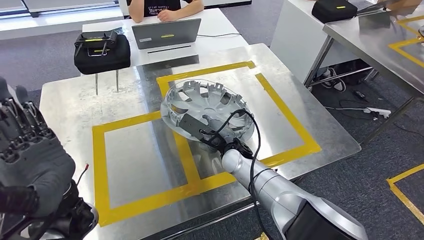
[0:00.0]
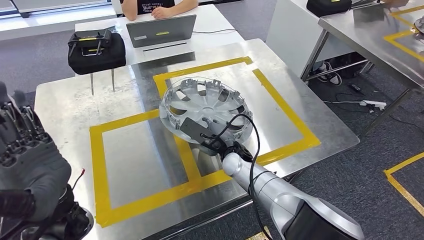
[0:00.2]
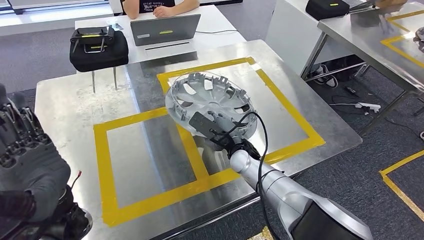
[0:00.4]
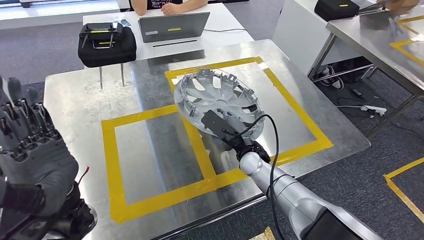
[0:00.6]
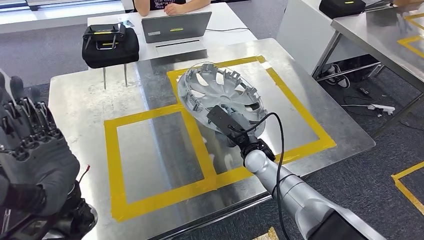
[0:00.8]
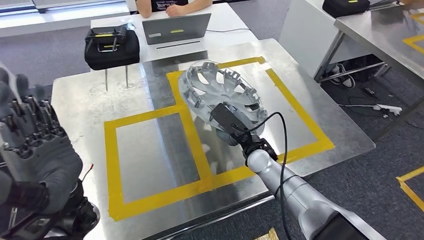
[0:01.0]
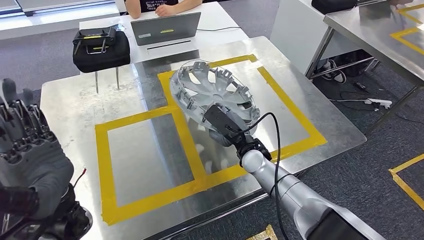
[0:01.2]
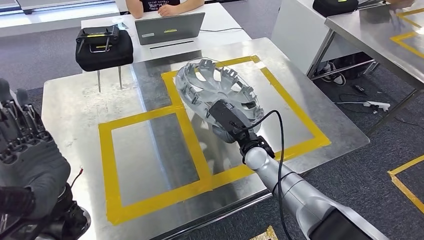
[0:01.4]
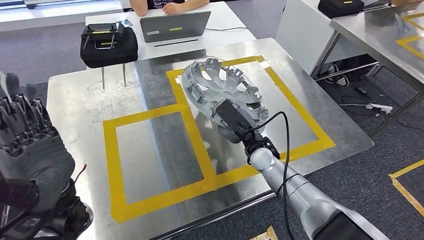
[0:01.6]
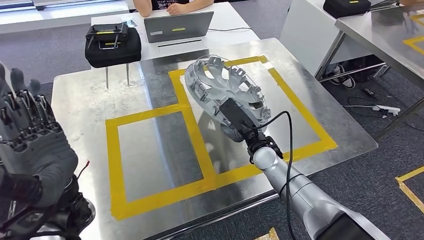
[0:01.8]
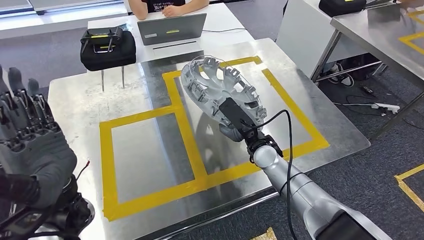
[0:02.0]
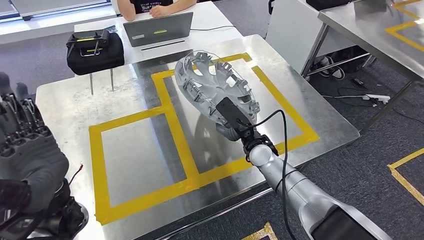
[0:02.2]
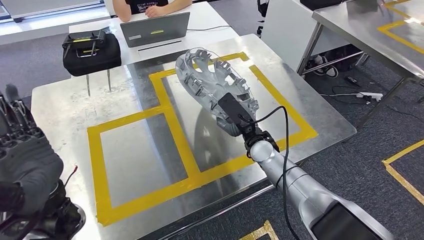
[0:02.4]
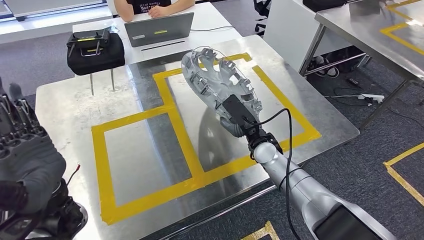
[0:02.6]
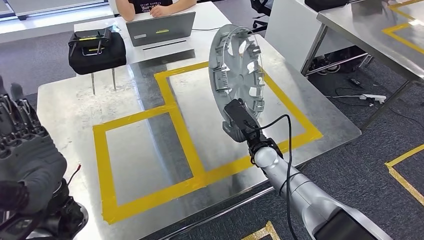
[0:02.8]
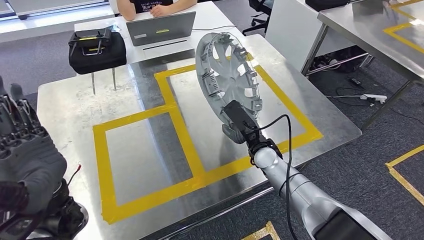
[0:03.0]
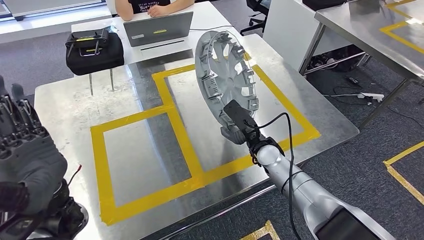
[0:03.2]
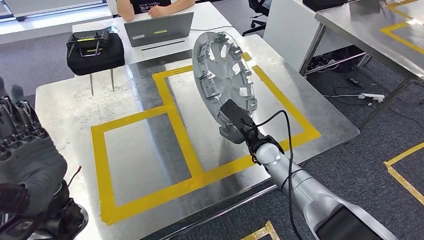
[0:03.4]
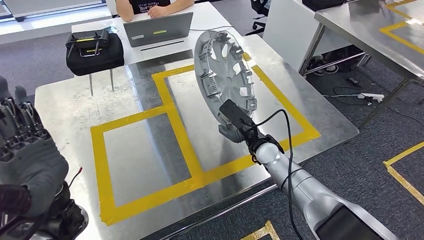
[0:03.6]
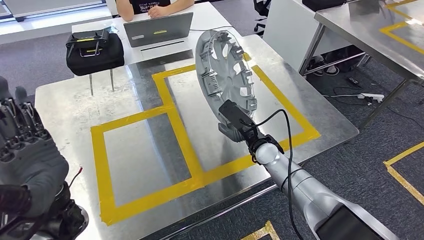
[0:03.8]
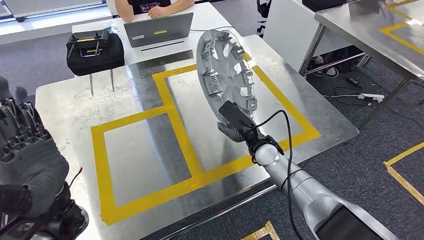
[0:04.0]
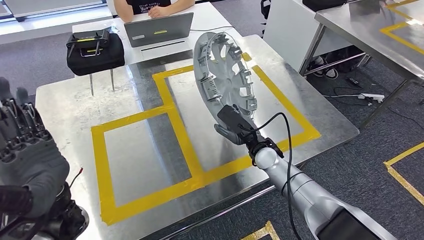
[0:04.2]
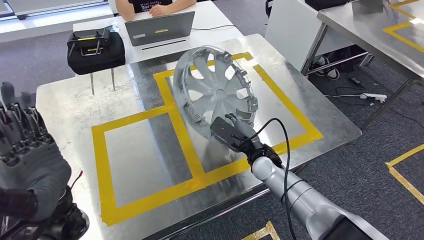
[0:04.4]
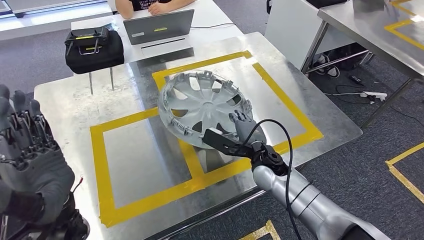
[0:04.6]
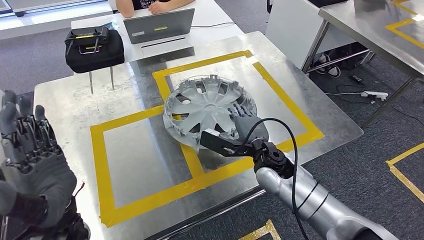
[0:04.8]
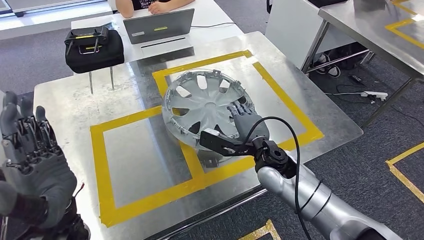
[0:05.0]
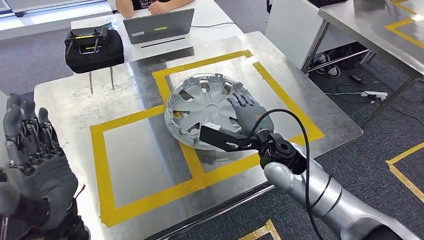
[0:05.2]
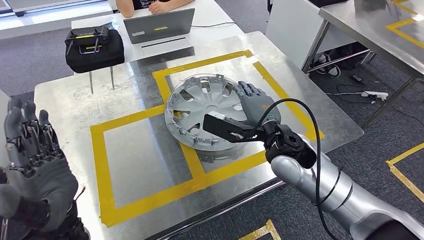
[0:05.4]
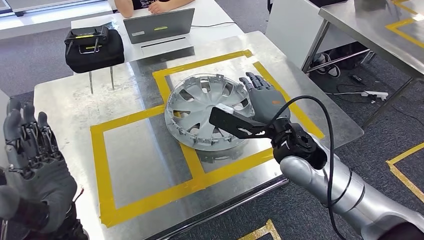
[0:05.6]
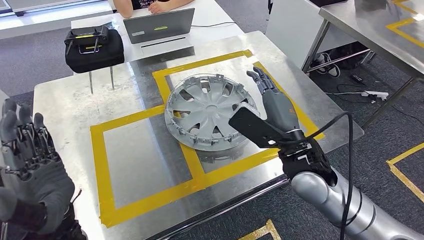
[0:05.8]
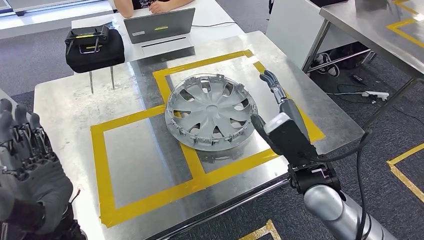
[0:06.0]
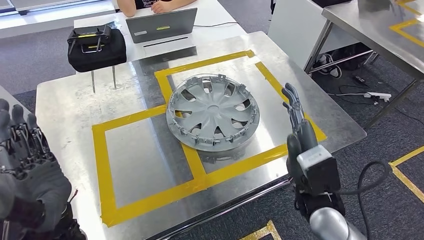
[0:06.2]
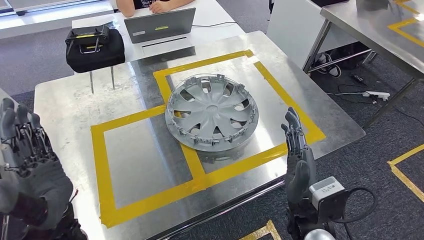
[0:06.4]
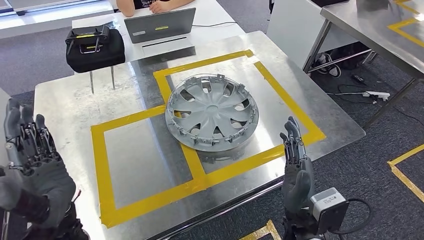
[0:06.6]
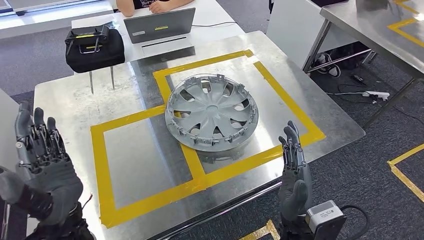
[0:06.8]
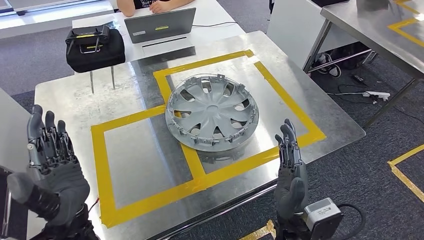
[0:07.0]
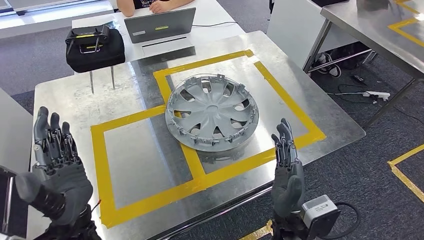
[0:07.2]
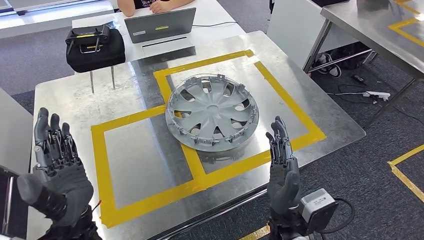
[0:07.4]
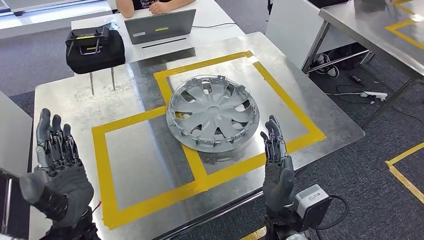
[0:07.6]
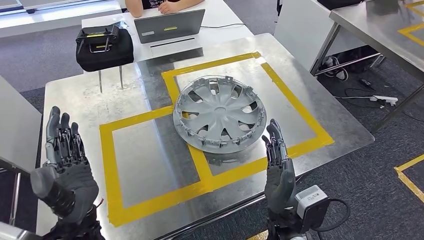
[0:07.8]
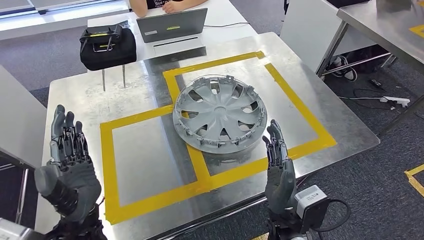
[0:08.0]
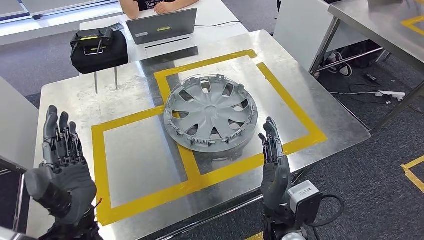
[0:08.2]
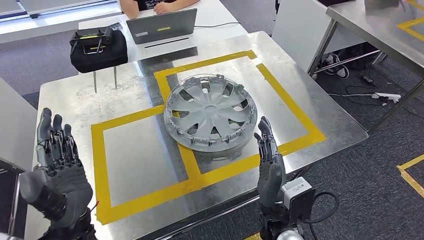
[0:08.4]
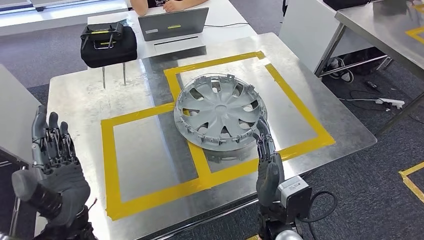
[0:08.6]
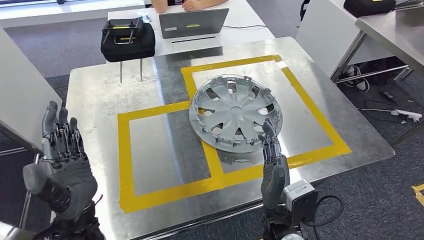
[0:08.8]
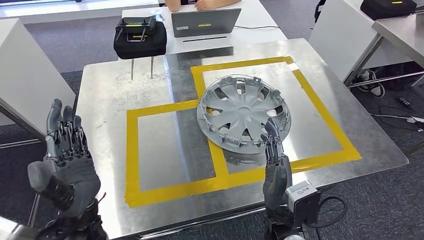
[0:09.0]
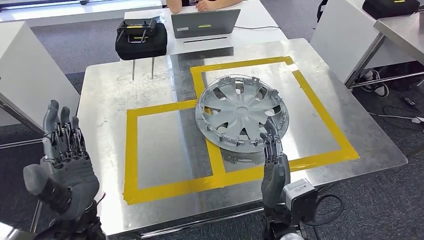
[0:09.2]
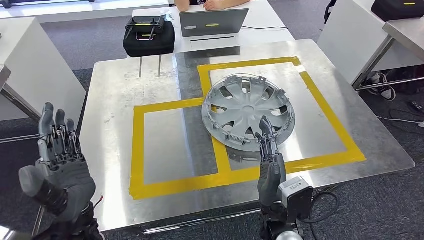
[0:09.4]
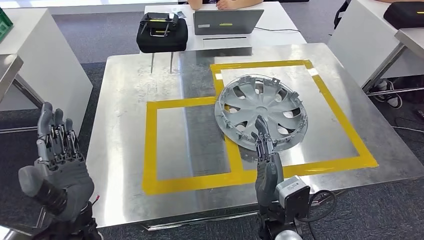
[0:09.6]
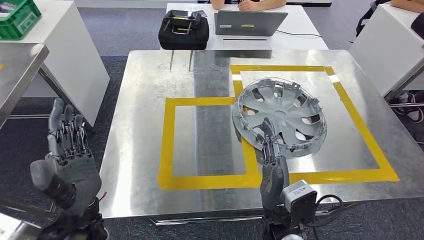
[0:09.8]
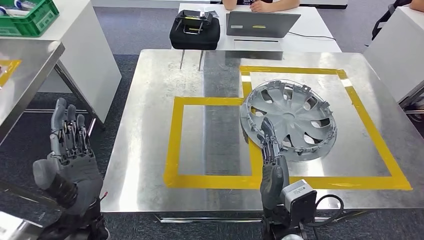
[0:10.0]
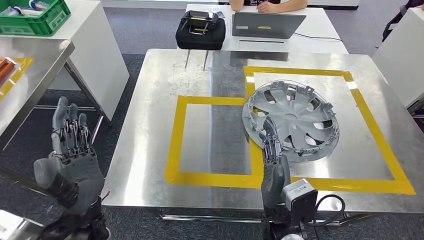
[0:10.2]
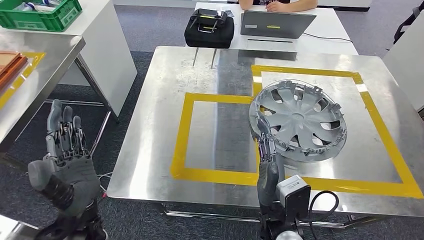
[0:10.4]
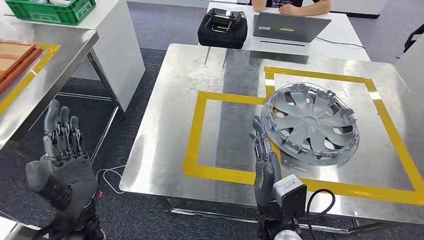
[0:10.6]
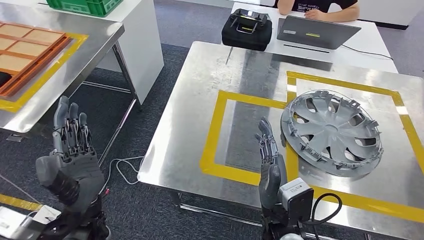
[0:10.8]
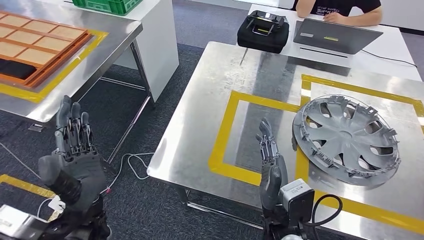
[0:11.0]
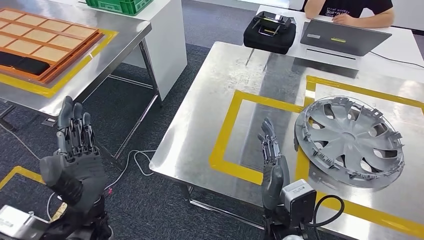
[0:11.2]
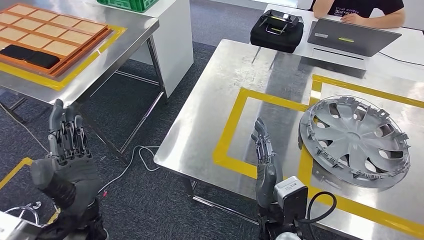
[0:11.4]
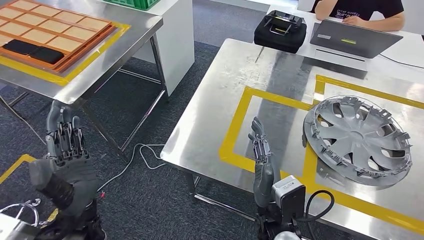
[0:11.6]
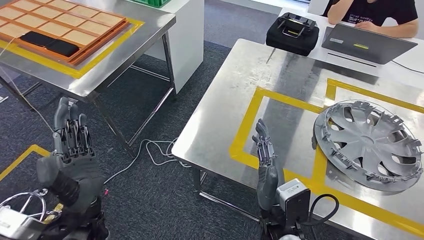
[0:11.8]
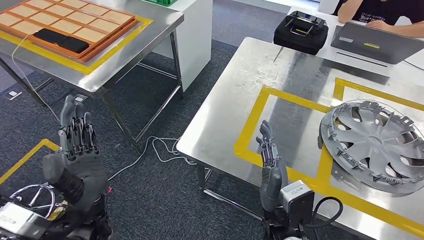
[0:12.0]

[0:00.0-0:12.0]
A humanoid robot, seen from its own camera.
Step, 0:00.0 to 0:06.4: Insert the small component into the corresponding slot on the workbench.
0:03.0 to 0:04.4: The hands move only a little.

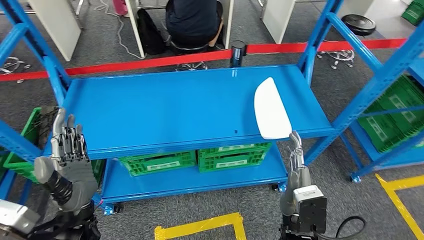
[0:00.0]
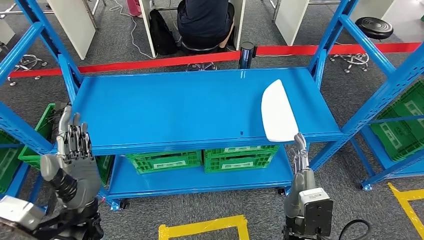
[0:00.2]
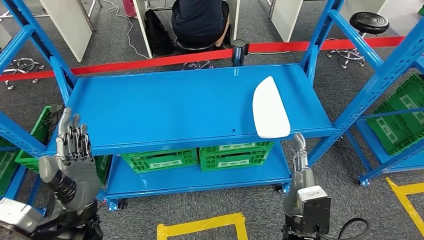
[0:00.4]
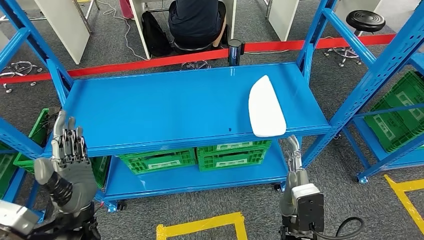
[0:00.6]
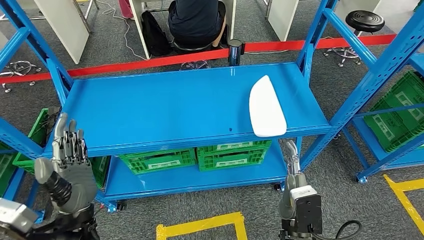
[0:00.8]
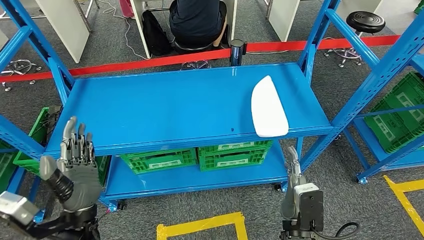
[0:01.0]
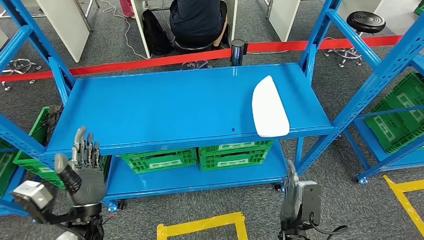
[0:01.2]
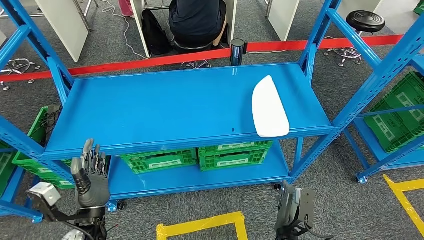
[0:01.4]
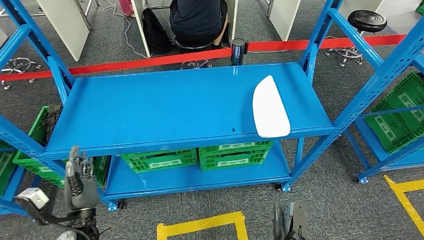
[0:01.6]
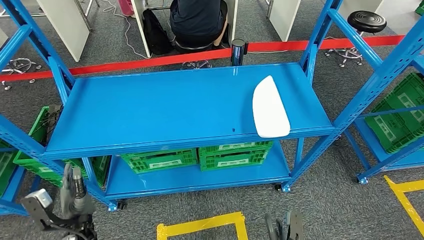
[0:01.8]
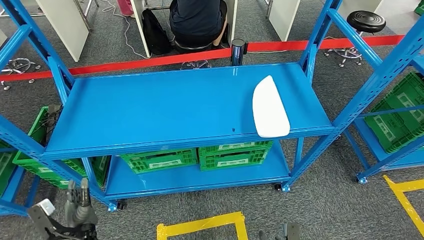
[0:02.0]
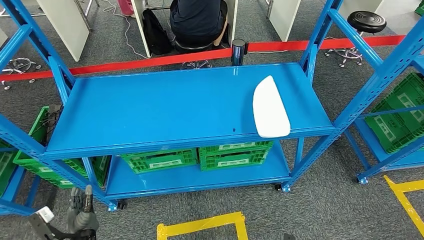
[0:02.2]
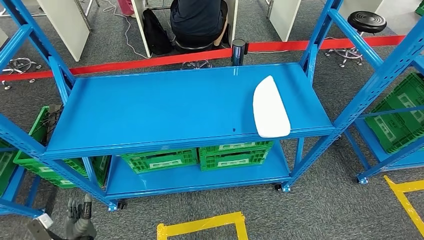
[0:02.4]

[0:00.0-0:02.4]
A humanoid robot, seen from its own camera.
Step, 0:00.0 to 0:02.4: Return to the initial position at the workbench.
0:01.2 to 0:02.4: The right hand is displaced downward by about 20 cm. The left hand shifts about 20 cm downward and to the left.
